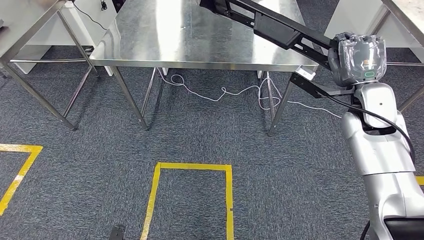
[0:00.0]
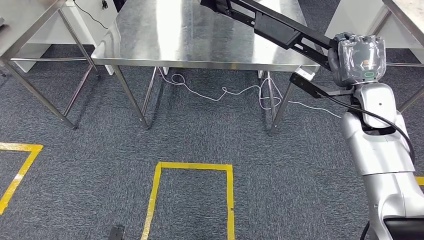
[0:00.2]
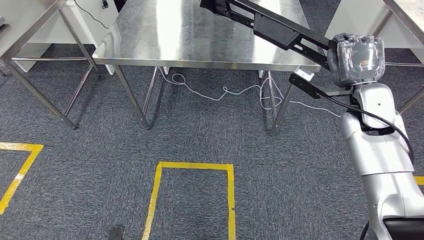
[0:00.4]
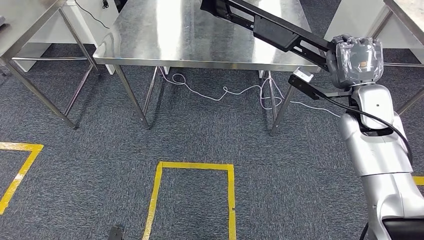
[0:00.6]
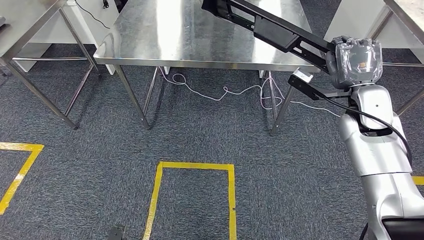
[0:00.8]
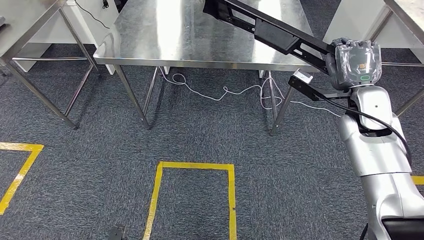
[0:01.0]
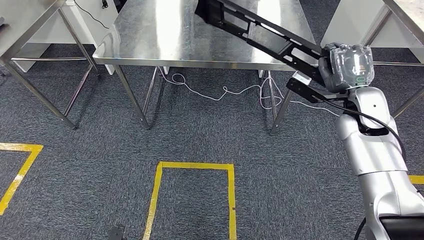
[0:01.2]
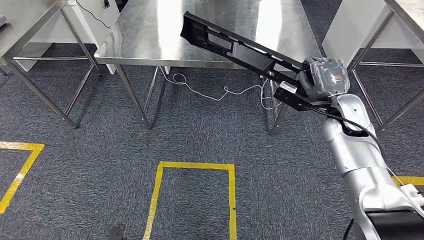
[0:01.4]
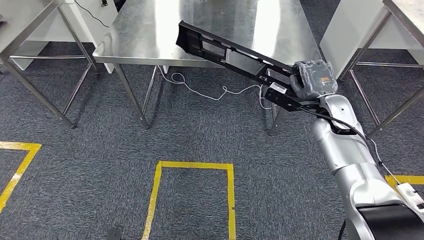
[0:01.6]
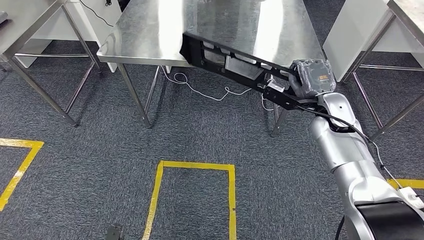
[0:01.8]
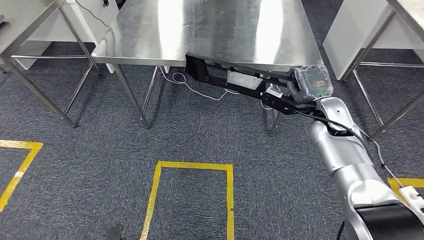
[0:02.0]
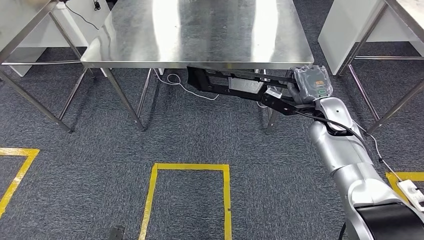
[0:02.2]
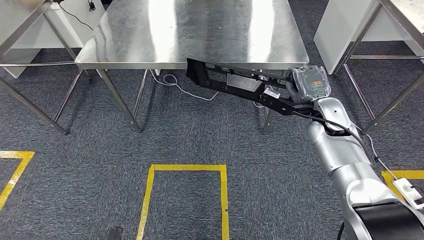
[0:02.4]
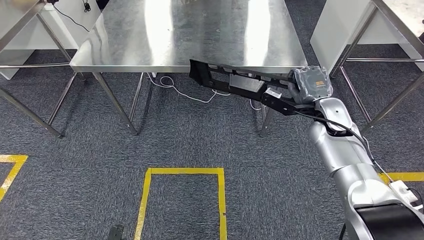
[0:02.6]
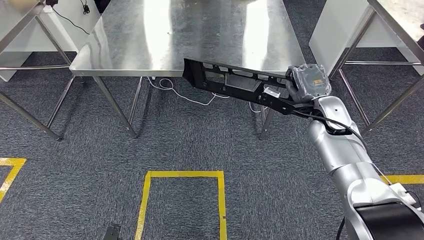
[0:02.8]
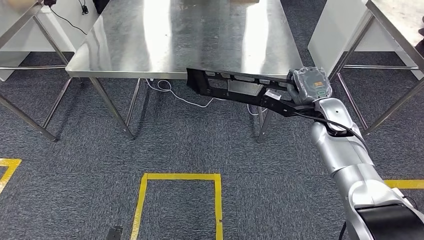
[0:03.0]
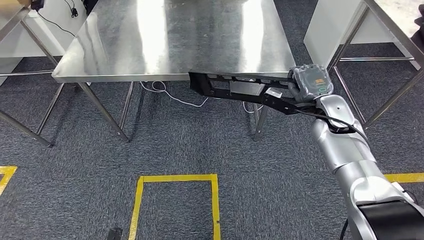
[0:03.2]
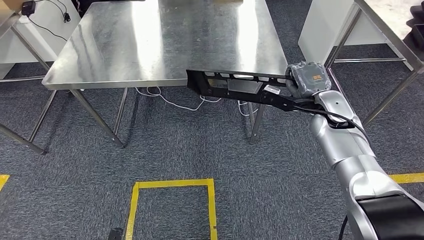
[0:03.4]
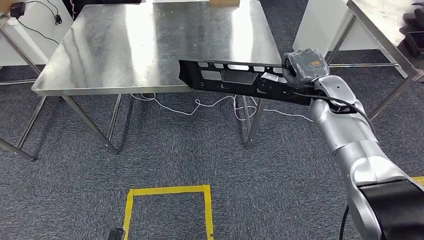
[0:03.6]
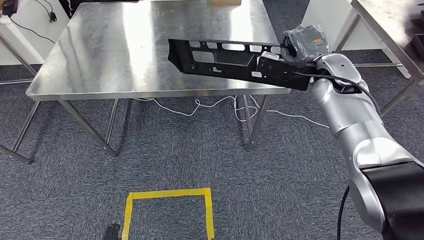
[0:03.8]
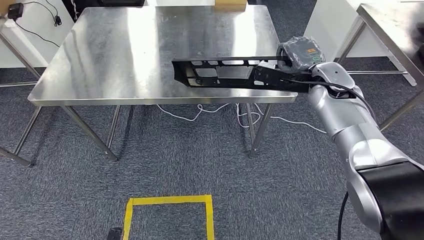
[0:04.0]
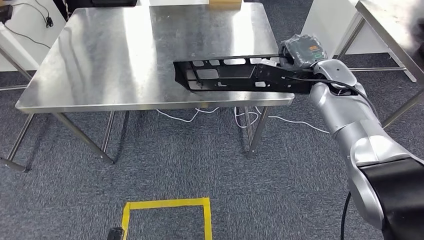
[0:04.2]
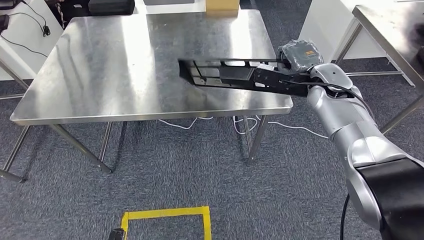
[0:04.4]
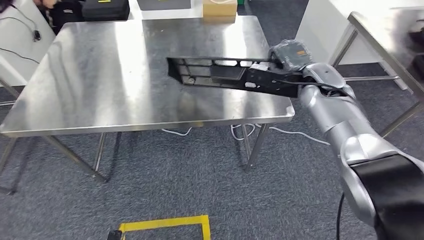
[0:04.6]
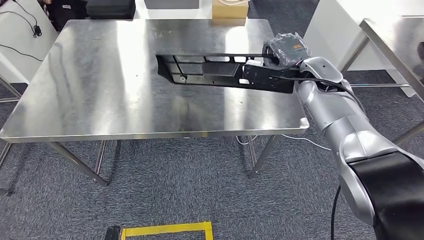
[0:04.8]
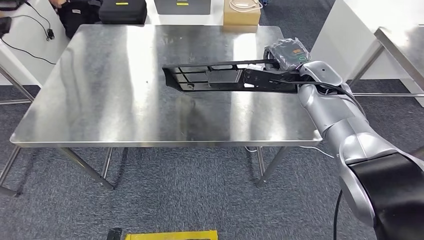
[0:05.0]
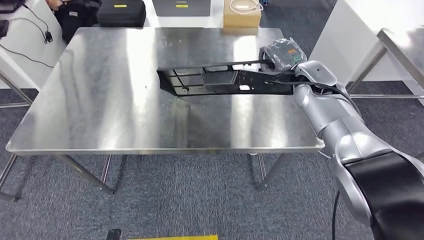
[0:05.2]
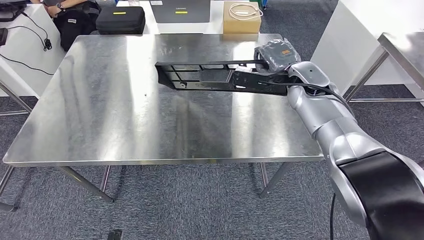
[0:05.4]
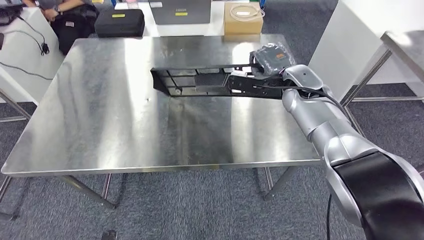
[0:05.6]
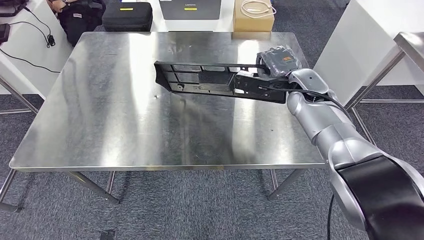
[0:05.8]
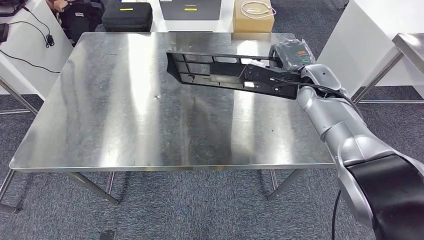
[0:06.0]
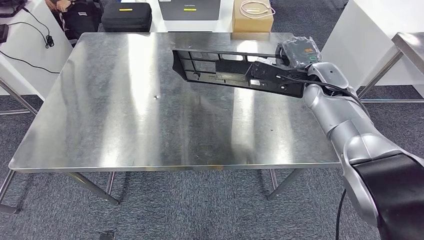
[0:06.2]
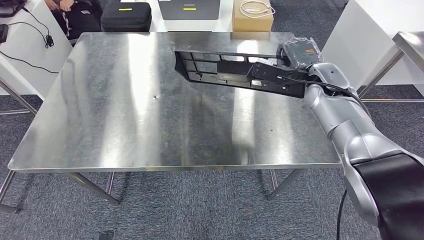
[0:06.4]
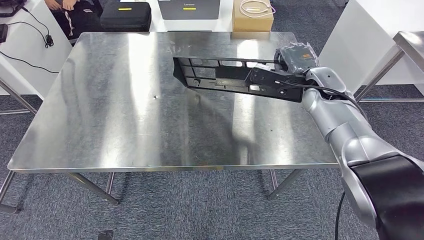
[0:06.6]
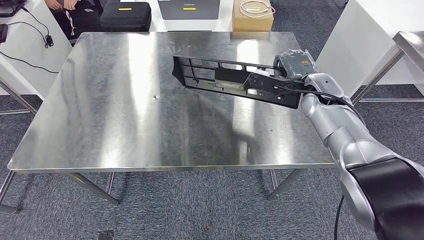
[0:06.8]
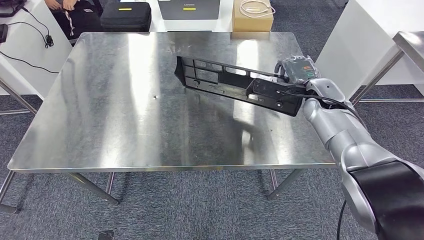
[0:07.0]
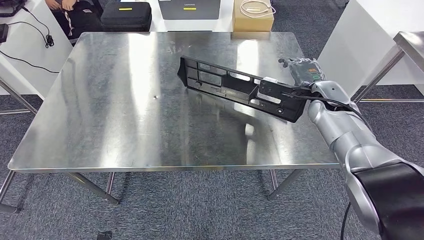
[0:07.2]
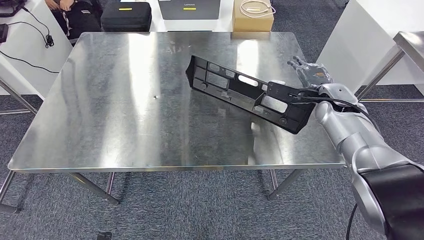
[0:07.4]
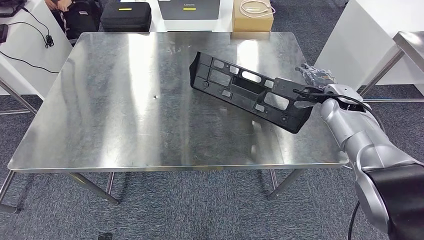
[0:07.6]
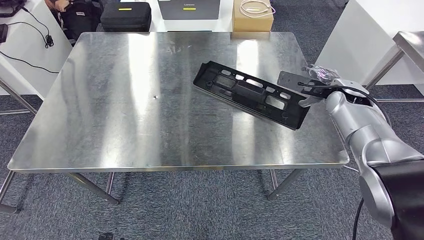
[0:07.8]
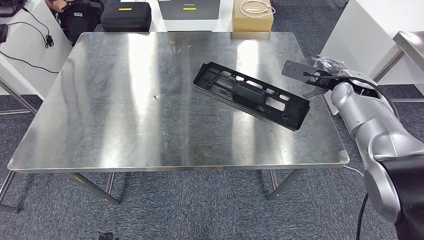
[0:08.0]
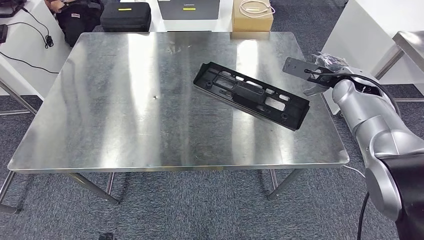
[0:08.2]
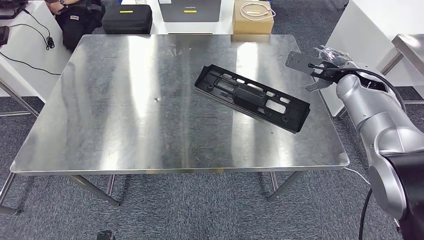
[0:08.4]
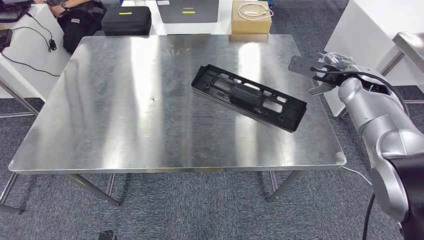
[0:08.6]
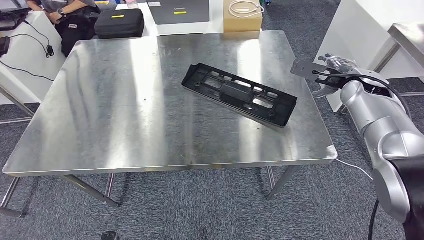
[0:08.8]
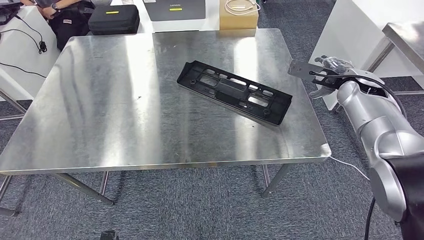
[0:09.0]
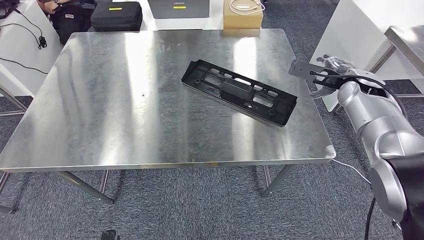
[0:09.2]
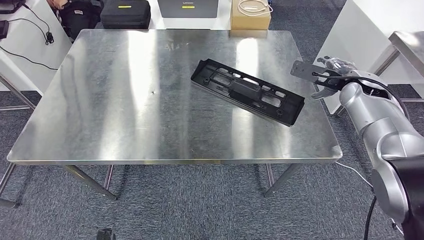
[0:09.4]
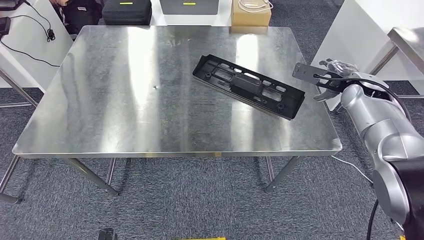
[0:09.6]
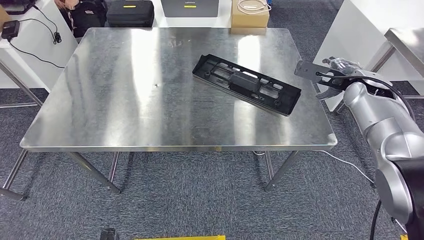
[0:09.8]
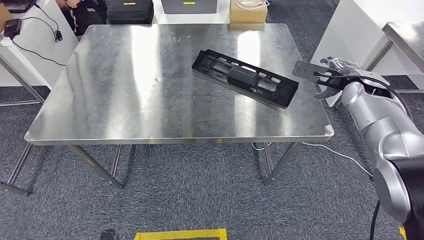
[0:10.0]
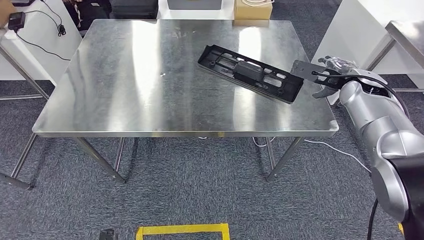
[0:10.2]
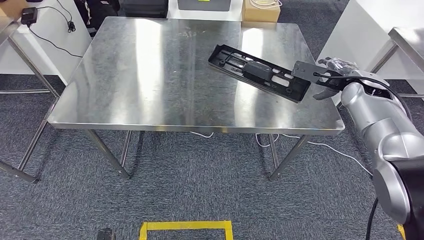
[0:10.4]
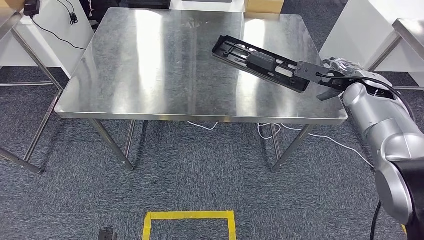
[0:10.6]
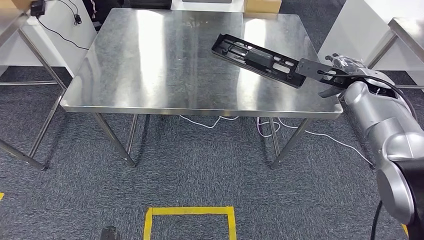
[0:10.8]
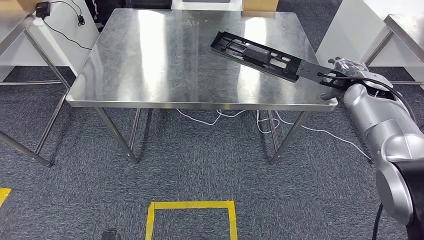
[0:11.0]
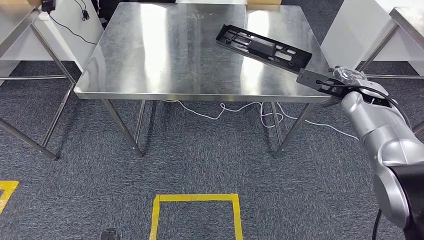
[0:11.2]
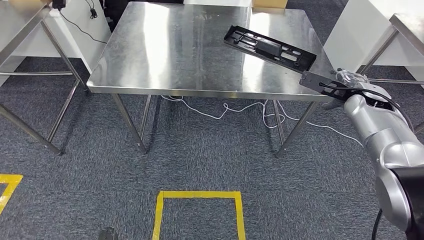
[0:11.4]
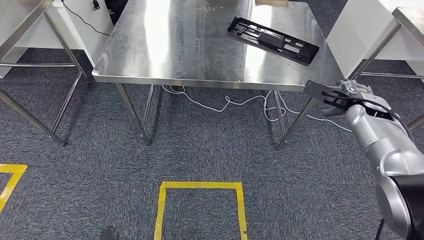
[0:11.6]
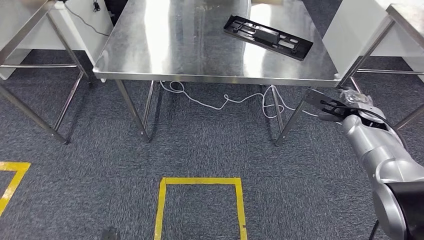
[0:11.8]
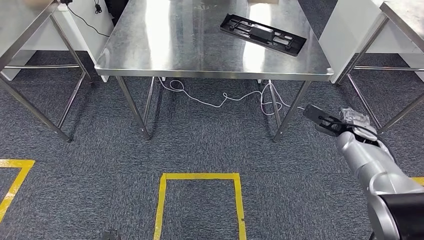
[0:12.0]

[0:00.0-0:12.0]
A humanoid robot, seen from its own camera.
Step, 0:00.0 to 0:07.2: Insert the large material into the corresponding slot on the workbench.
0:06.0 to 0:07.6: The right hand travels to the right by roughly 10 cm.

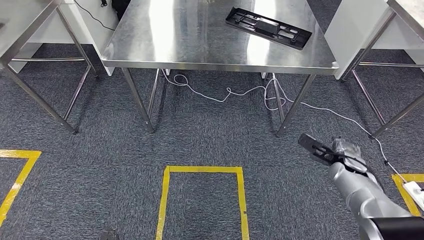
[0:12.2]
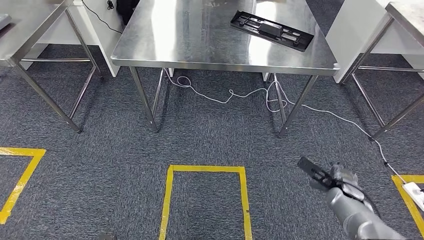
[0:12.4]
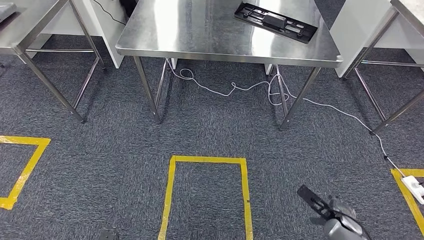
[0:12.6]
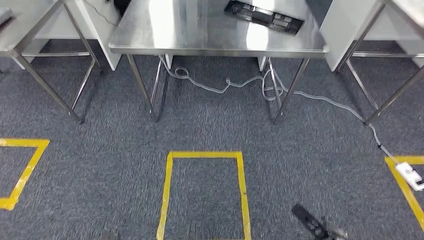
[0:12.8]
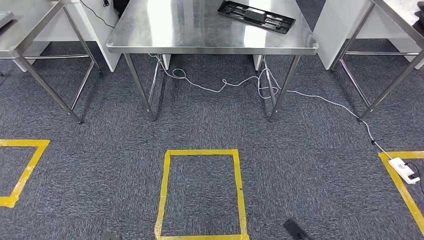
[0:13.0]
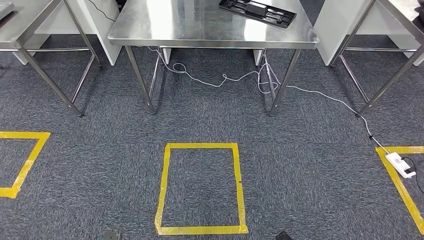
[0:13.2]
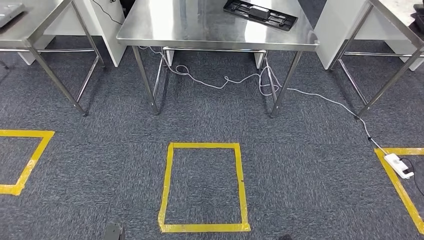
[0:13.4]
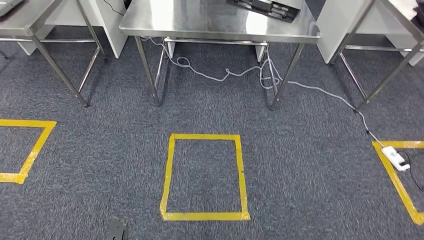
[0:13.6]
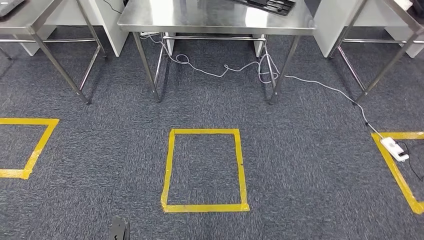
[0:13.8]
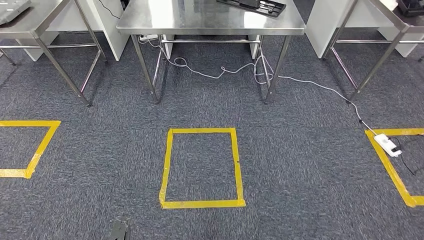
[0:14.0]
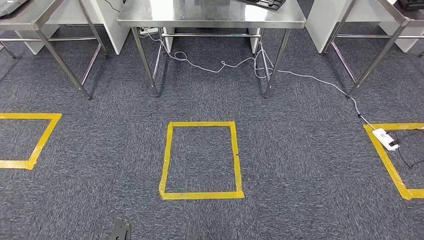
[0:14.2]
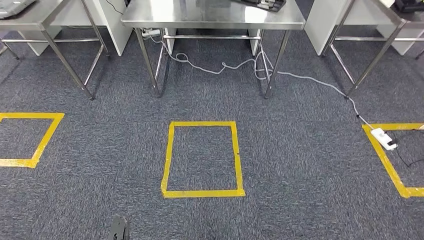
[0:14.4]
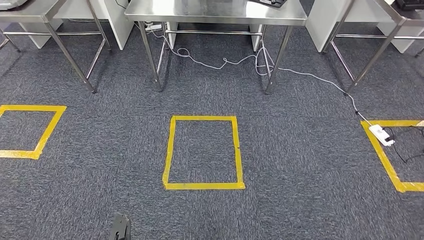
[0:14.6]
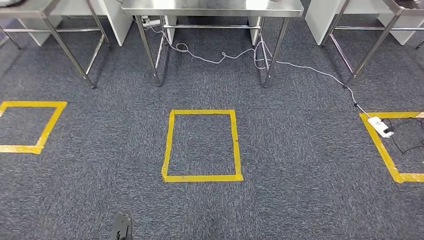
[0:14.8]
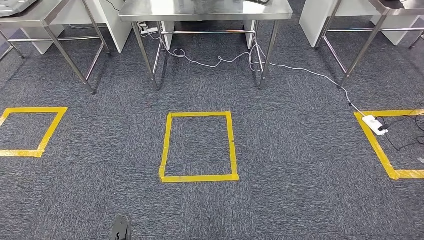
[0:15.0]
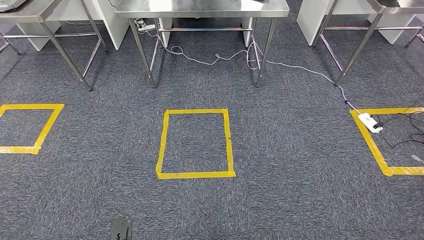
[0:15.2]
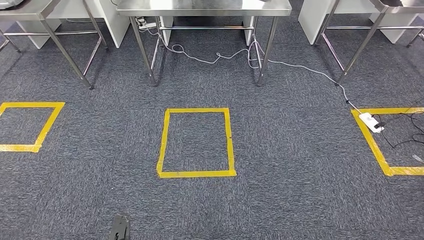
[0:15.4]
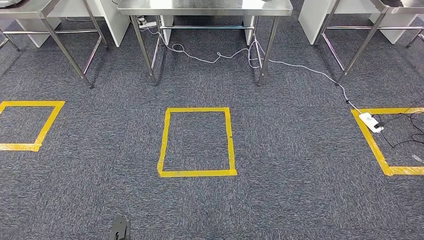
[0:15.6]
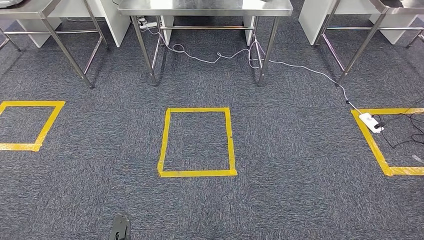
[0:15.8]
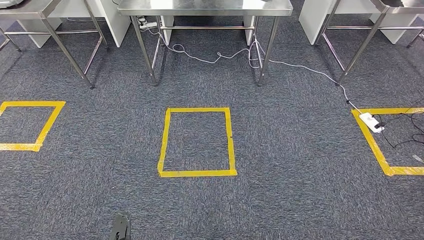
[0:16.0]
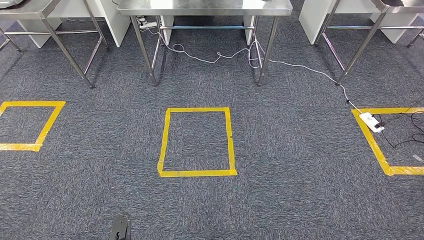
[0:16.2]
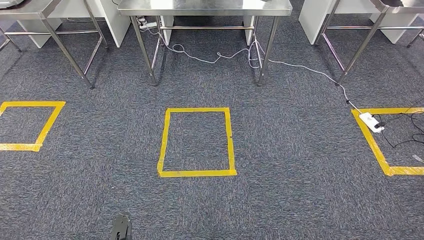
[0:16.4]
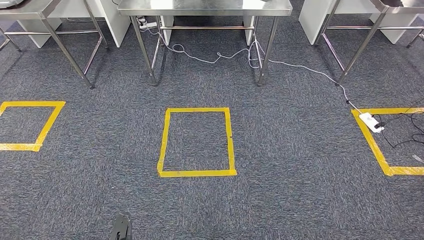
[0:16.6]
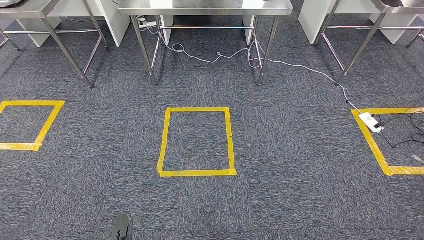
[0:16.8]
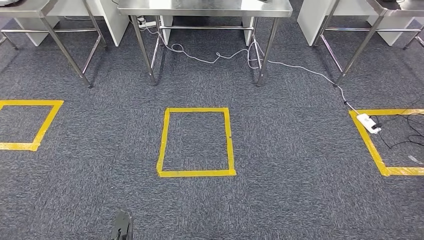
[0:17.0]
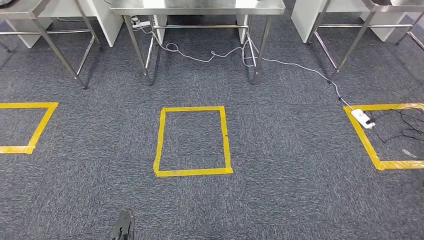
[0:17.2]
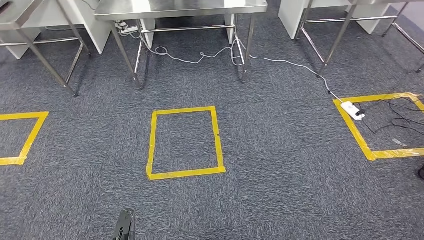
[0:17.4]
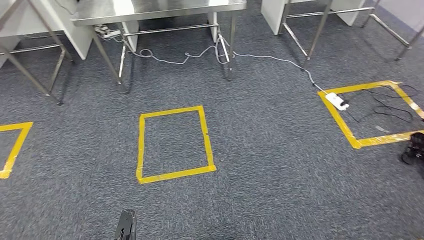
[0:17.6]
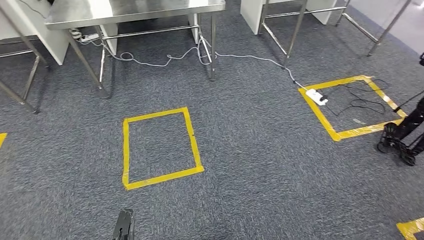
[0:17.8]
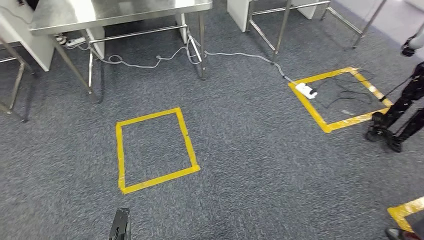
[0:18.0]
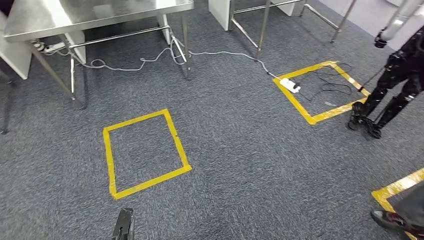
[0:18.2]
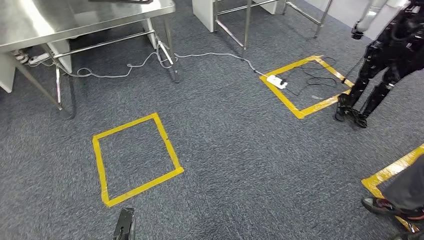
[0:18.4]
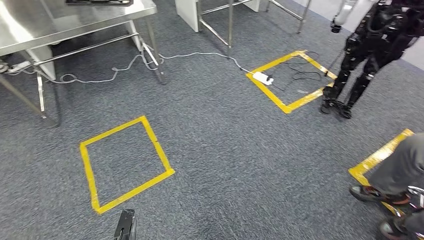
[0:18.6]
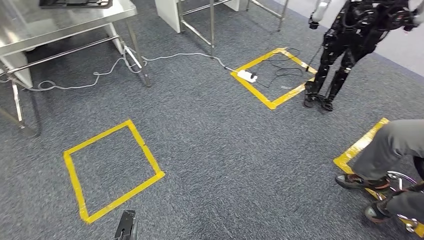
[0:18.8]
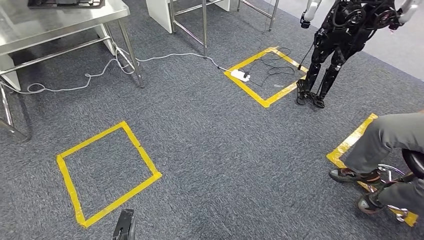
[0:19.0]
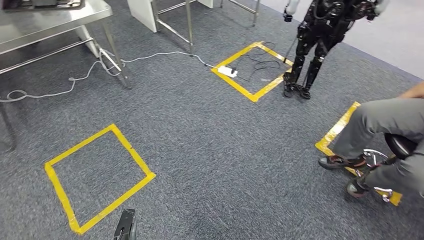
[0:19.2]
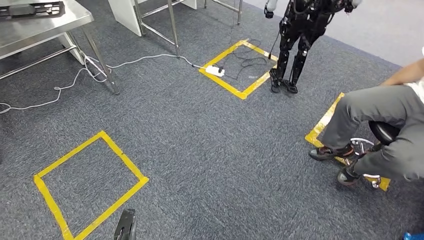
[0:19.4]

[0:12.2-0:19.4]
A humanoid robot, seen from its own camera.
0:15.0 to 0:16.6: Both hands stay put.
